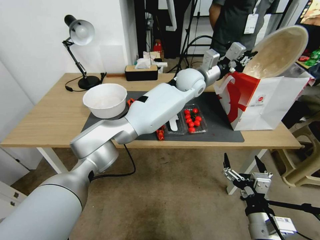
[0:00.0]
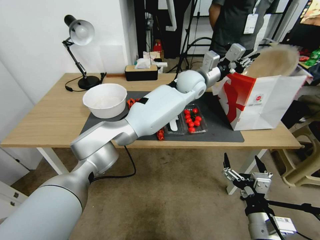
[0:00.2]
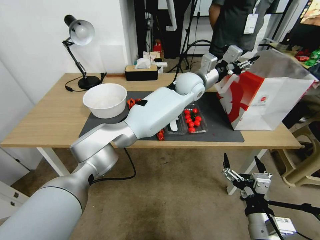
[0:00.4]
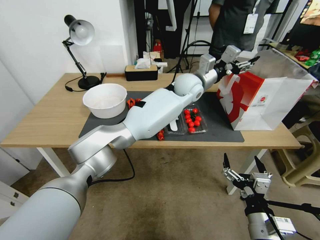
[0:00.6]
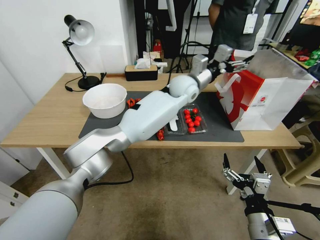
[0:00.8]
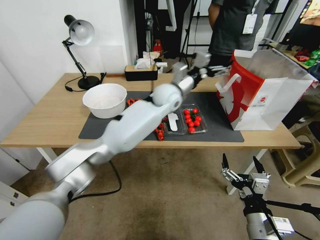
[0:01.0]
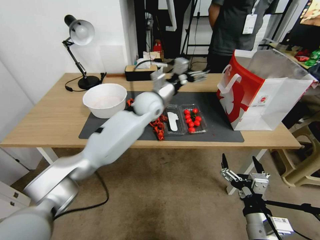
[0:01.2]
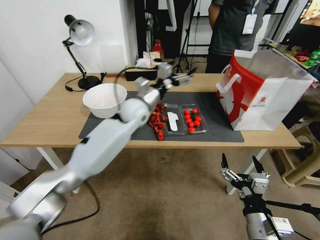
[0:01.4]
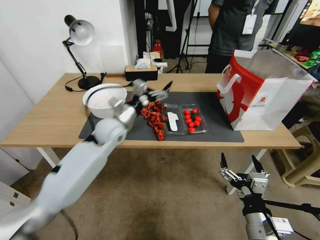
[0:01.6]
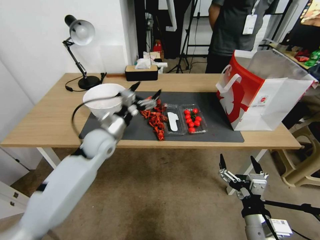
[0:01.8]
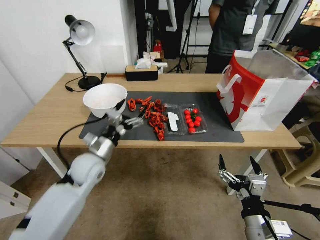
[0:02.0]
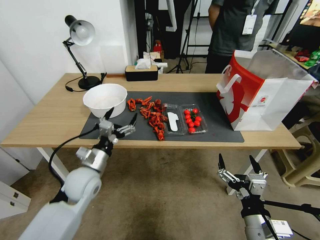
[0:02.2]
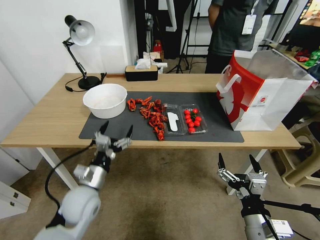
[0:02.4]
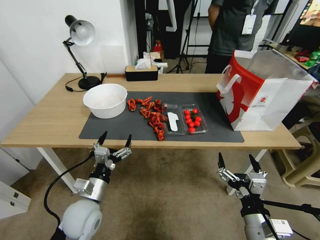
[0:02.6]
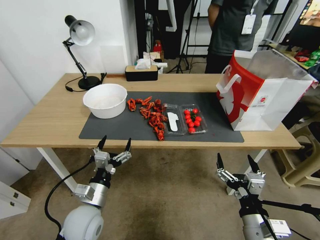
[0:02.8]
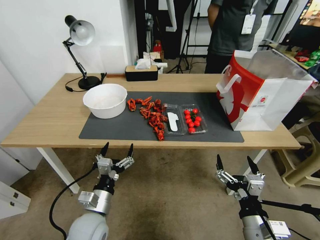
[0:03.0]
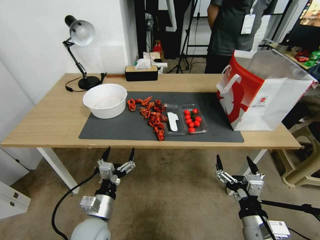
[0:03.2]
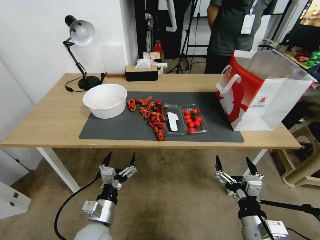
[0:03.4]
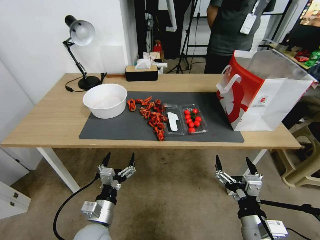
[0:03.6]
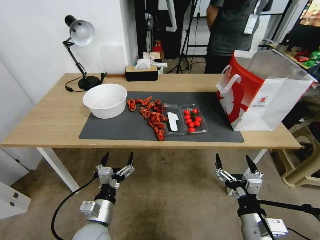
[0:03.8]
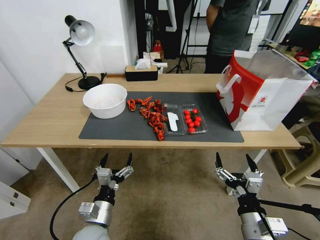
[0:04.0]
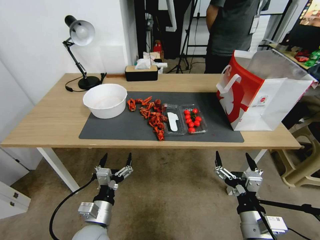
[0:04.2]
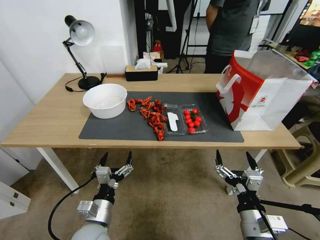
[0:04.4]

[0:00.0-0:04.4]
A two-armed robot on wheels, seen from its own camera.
0:00.0 to 0:01.4: The left gripper is displaced to the left and downward by about 20 cm, and opens its fingers.
0:01.4 to 0:03.0: The left gripper moves backward and downward, roughly 35 cm.
0:03.0 to 0:04.4: The grippers move only a little.
